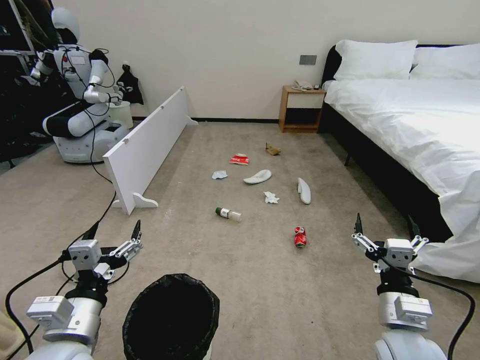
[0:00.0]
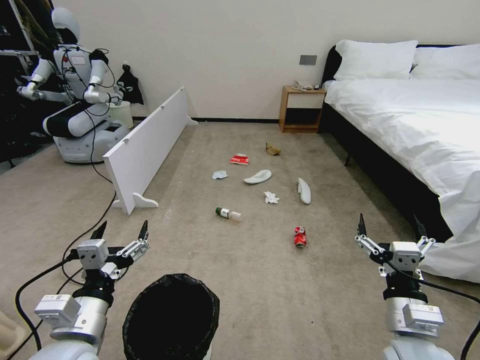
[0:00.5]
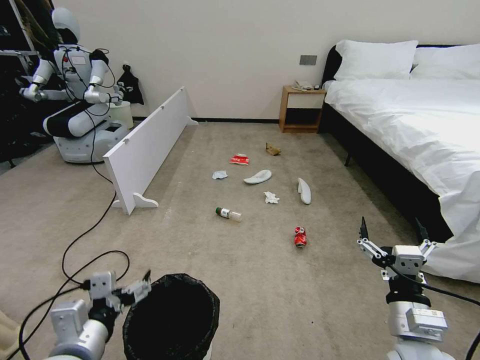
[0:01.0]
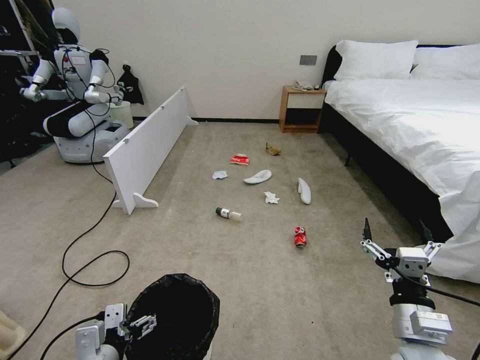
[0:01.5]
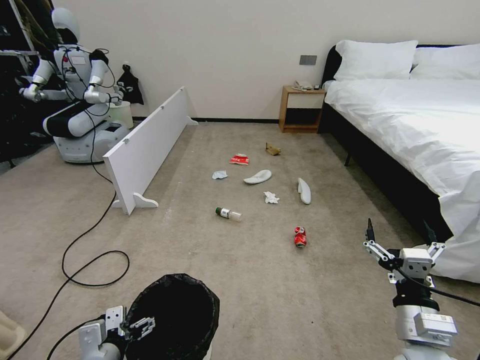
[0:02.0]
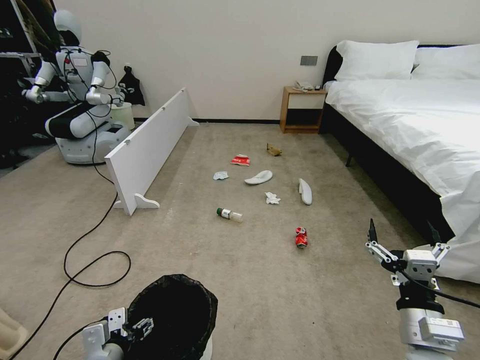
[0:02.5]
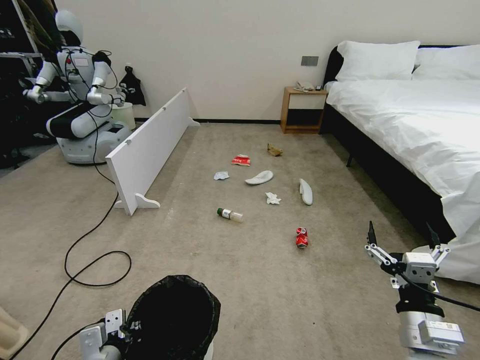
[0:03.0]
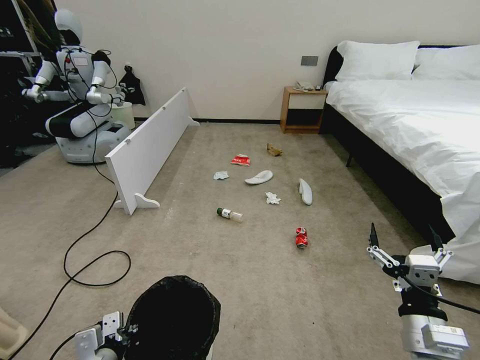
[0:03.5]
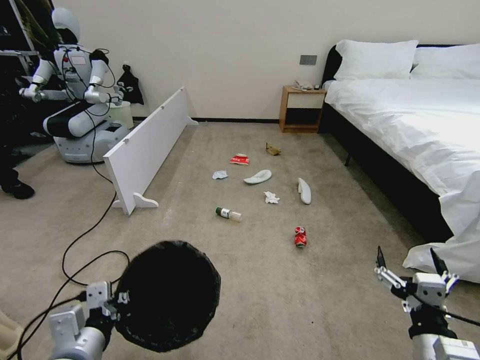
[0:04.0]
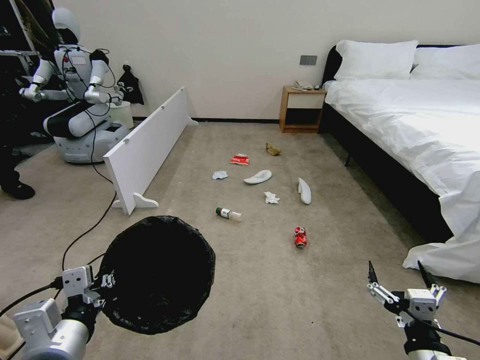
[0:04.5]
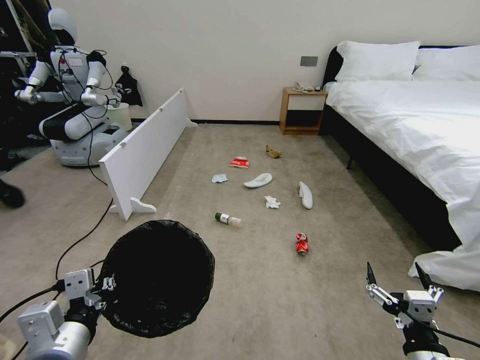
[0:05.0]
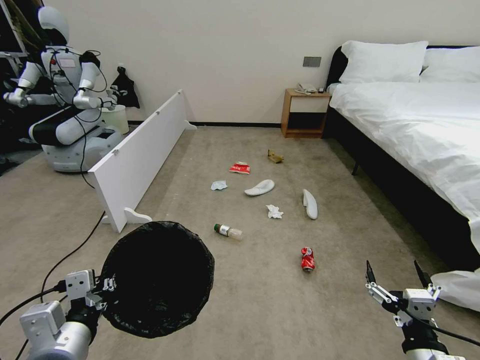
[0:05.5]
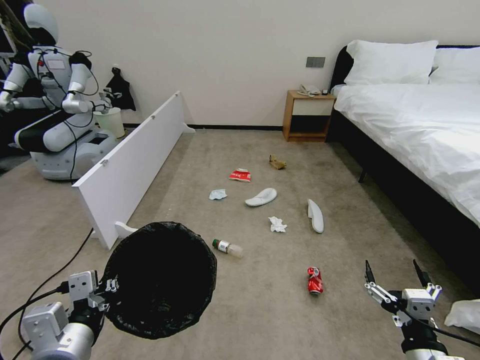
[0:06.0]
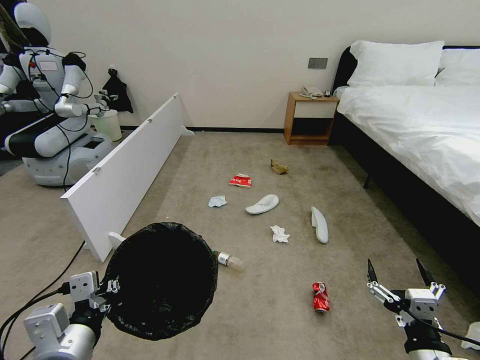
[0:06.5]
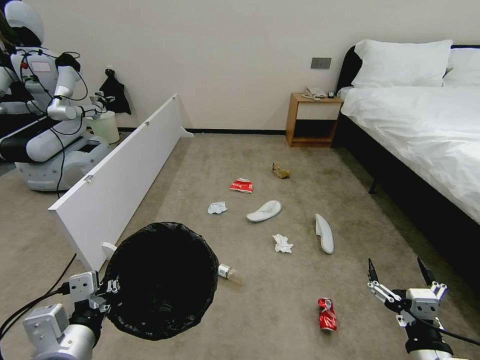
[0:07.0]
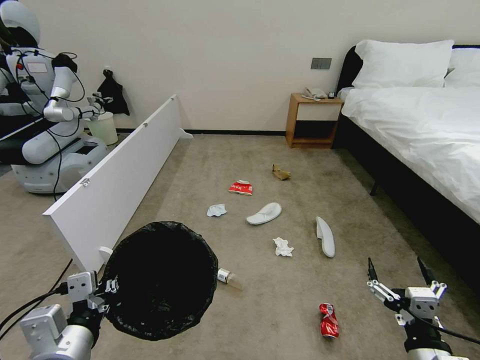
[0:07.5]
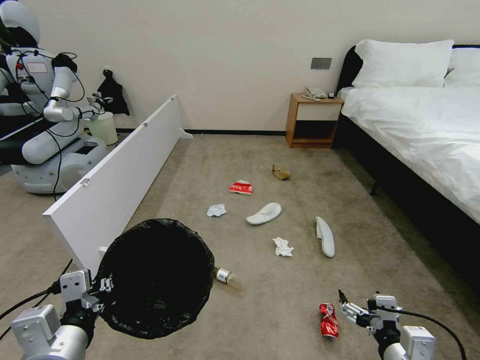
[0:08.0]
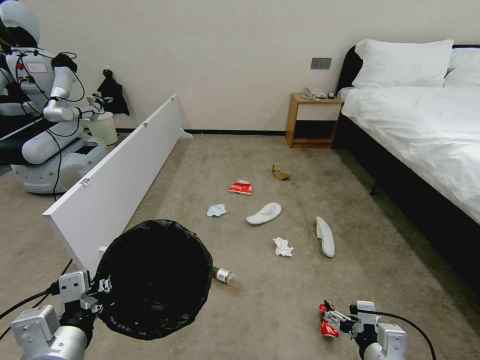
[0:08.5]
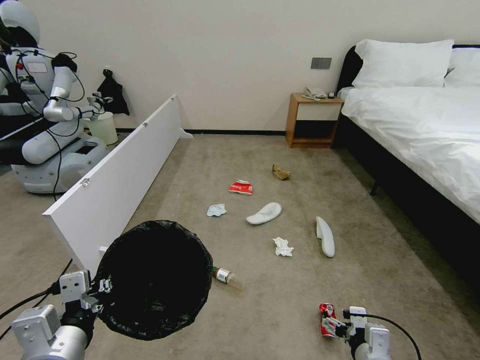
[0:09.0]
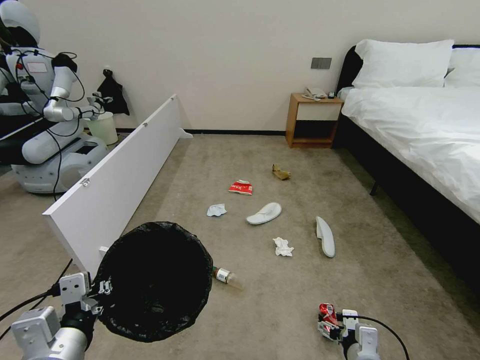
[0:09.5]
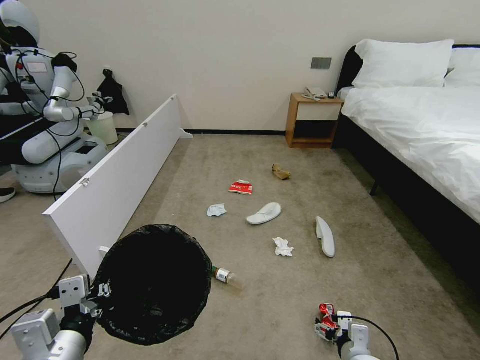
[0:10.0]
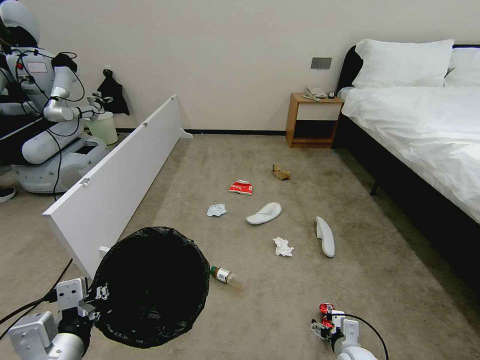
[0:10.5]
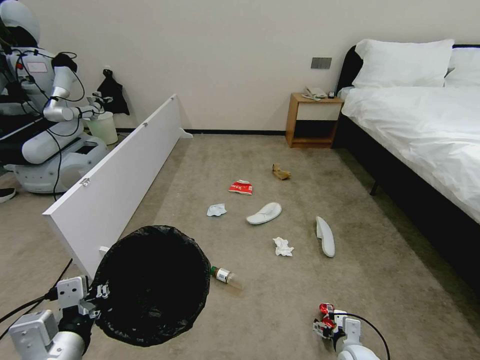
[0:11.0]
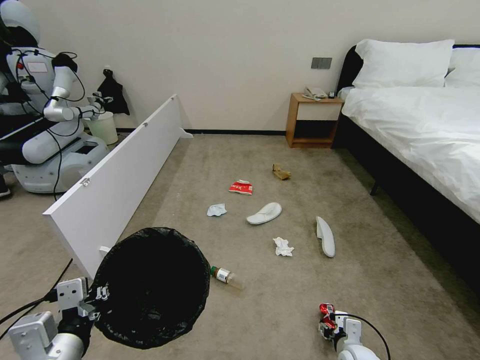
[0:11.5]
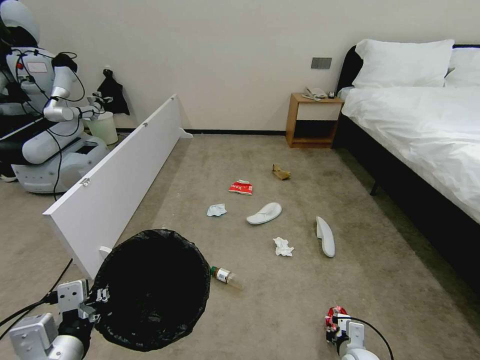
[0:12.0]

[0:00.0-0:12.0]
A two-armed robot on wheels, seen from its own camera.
Task of the whole recording: Pick up the trash bin, then pick up the garbage from the floor and place it into the trash bin.
0:02.0 to 0:04.0: The left gripper travels upward by some 10 cm, and closes its fingers.
0:08.0 to 0:10.0: The right gripper is displaced downward and forward by approximately 20 cm.
0:10.0 to 0:12.0: The right gripper changes place by some 5 cm, and closes.

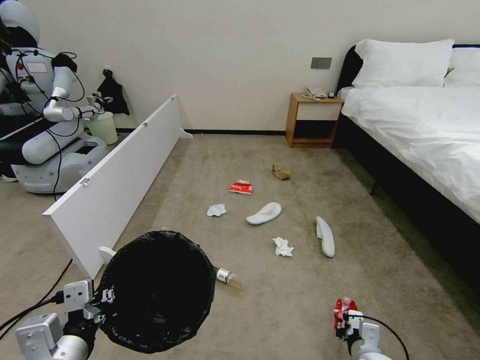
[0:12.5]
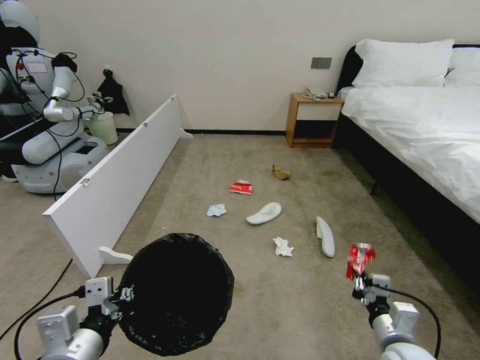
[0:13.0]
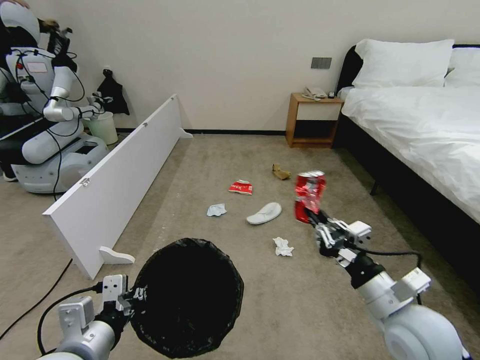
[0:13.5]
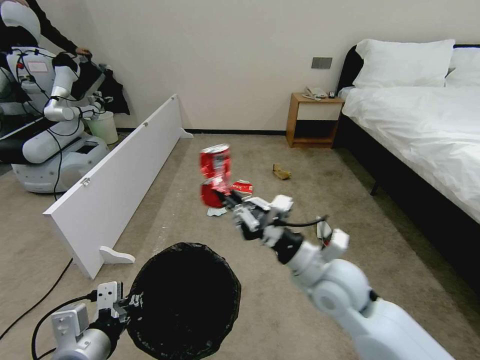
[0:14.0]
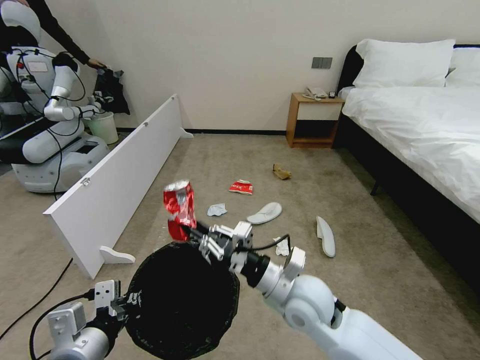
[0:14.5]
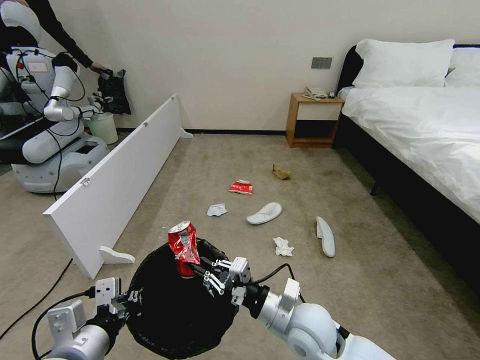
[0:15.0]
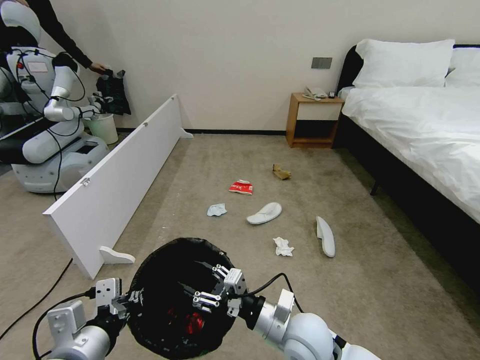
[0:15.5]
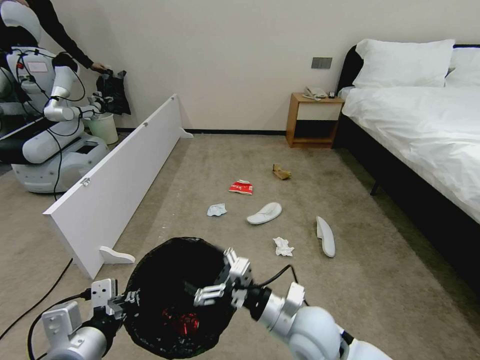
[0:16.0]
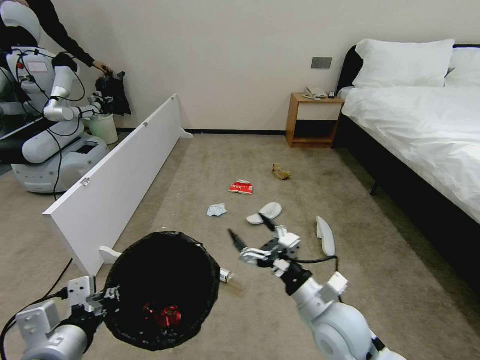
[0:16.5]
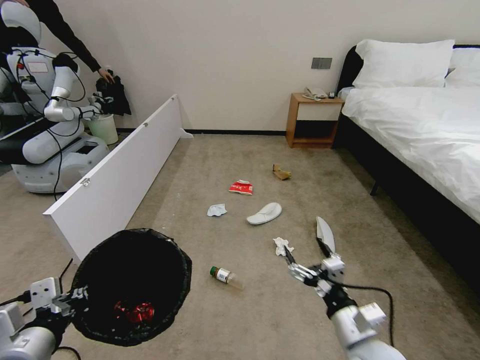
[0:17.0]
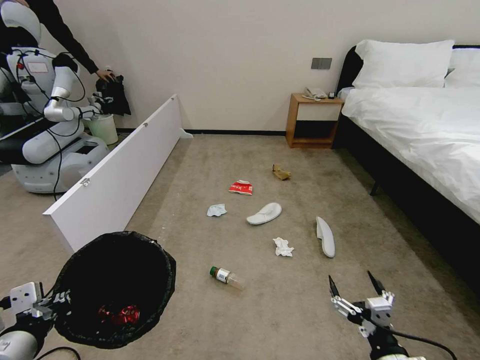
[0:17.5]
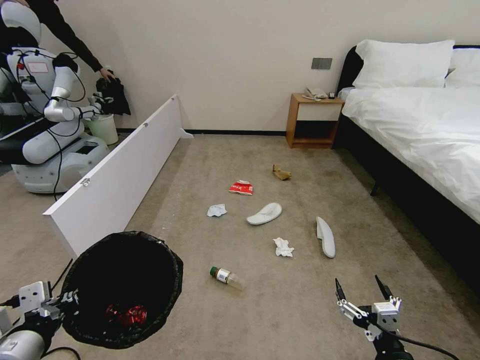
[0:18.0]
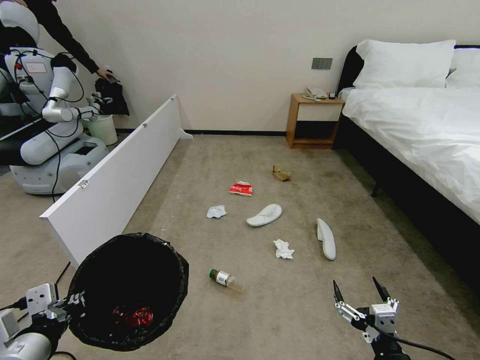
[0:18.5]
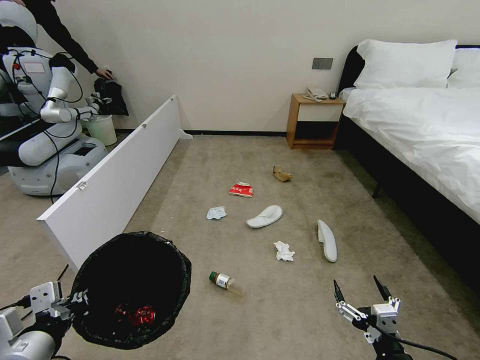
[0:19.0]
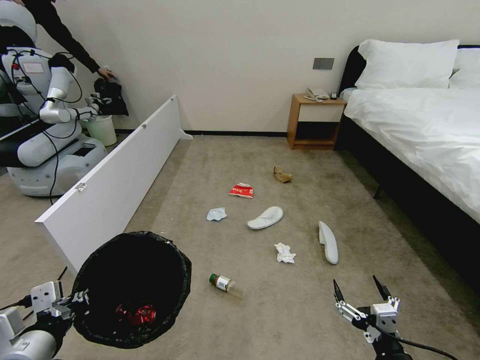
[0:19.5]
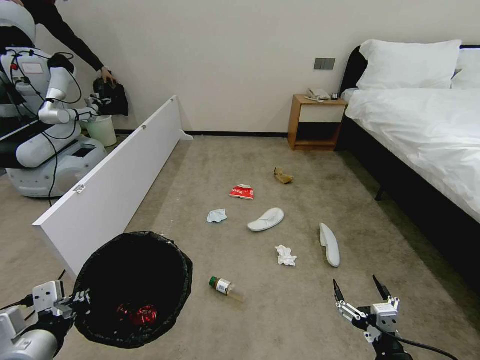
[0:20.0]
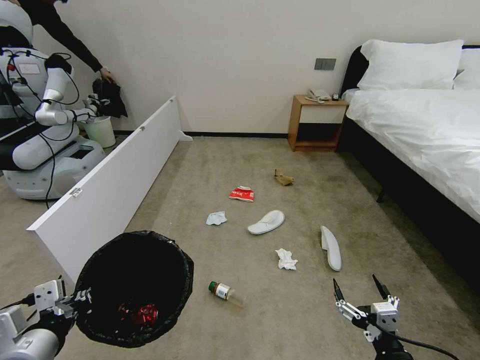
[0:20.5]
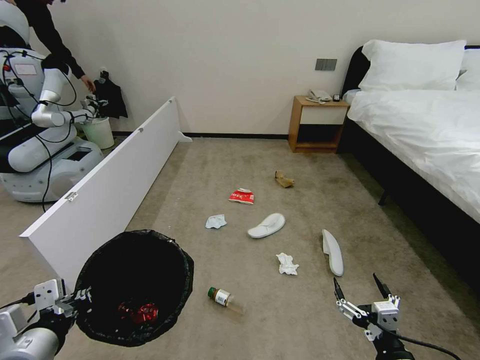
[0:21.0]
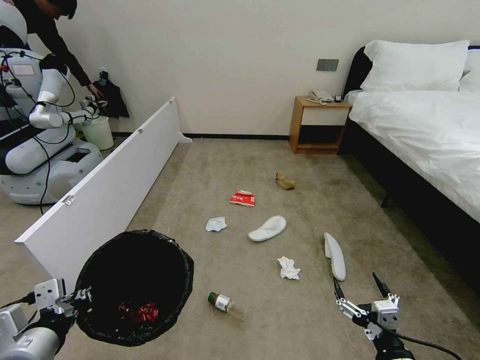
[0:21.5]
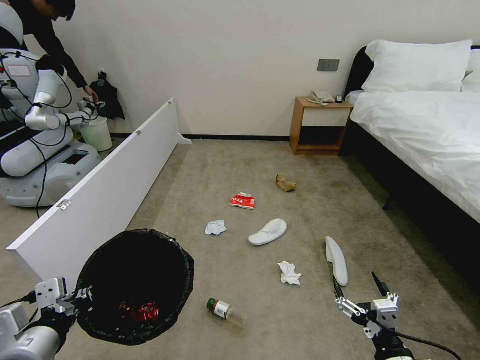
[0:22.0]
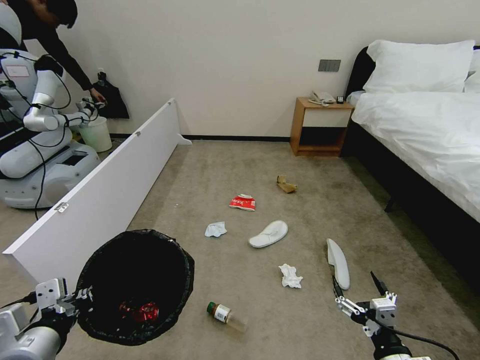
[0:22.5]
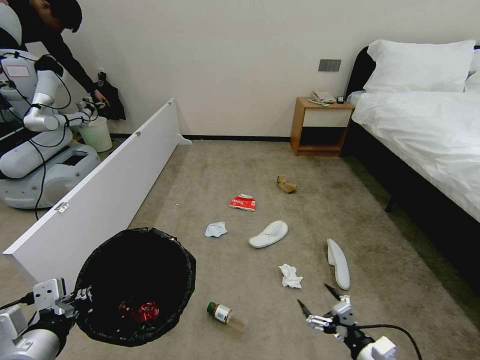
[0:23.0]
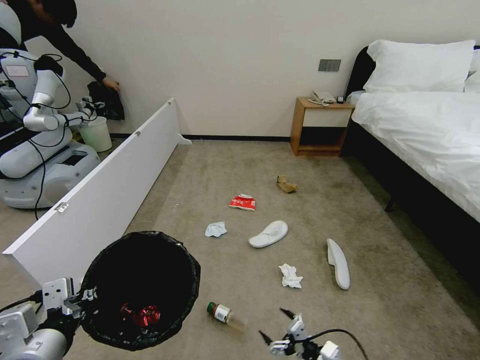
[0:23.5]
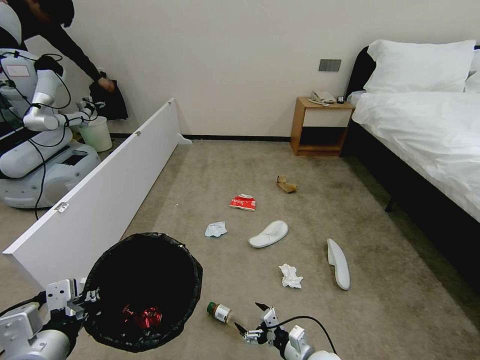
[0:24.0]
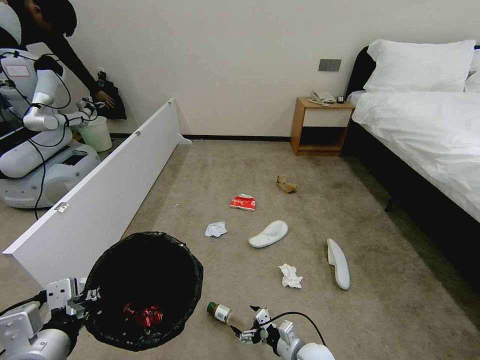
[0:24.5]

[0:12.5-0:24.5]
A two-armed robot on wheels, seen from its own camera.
Task of the whole recording: Pick up the trash bin, then pick up the garbage from the floor and place it into the trash bin.
0:12.5 to 0:14.5: The right gripper goes approximately 30 cm upward and to the left.
0:14.5 to 0:16.5: The right gripper shifts about 5 cm to the right, and opens up.
0:16.5 to 0:18.5: The right gripper goes some 20 cm backward, to the right and downward.
0:18.5 to 0:20.5: Both grippers stay about where they are.
0:20.5 to 0:22.5: The grippers move only a little.
0:22.5 to 0:24.5: The right gripper goes approximately 25 cm downward, forward and to the left.

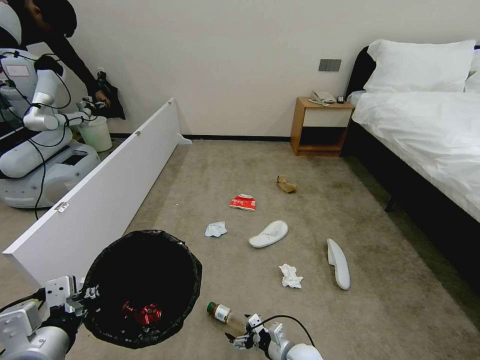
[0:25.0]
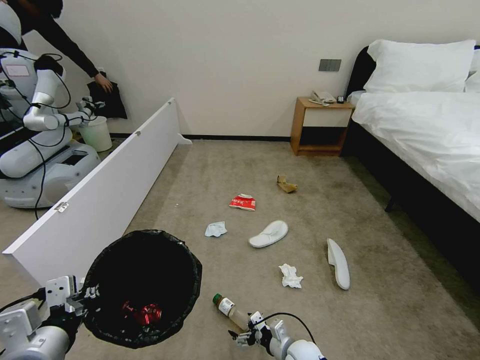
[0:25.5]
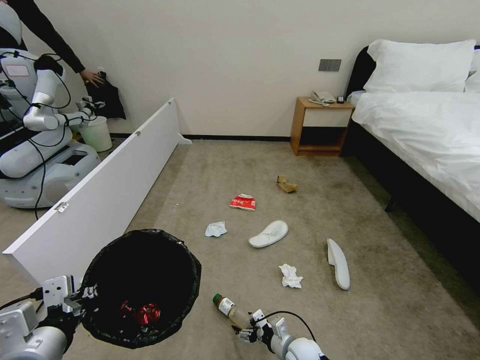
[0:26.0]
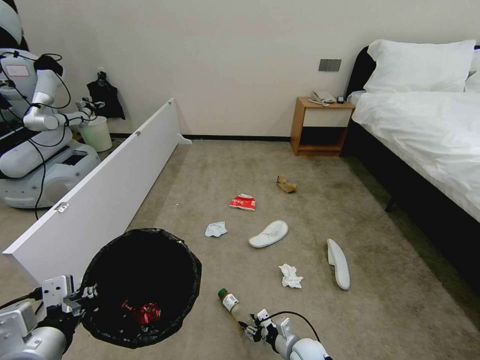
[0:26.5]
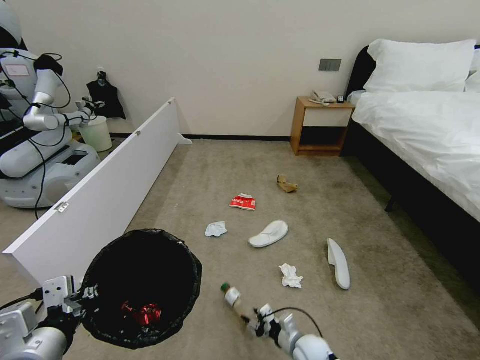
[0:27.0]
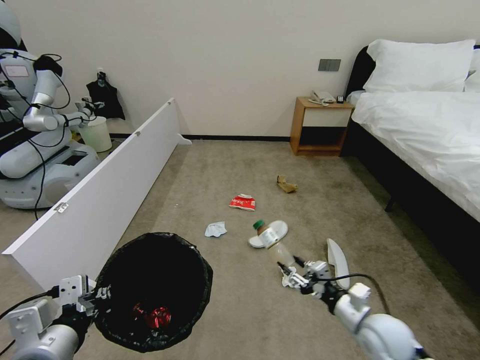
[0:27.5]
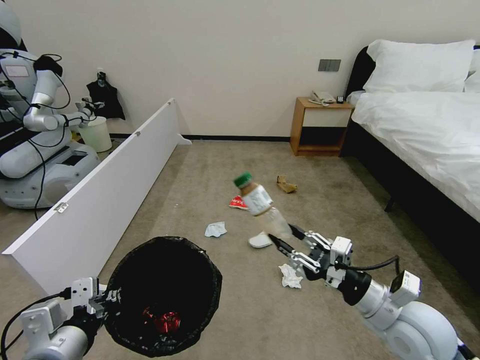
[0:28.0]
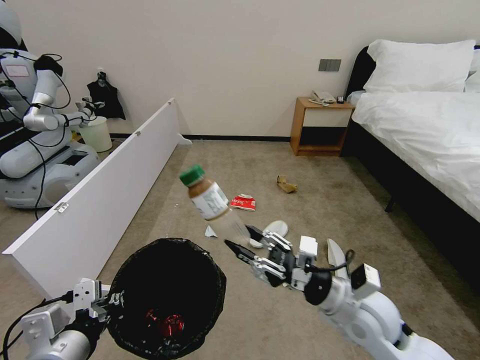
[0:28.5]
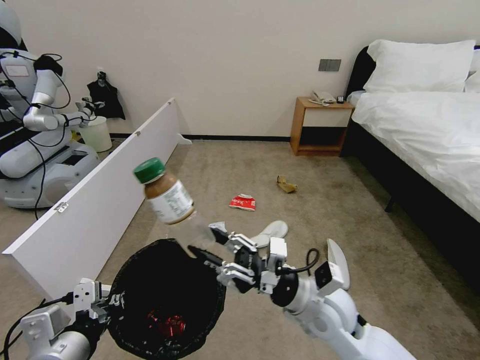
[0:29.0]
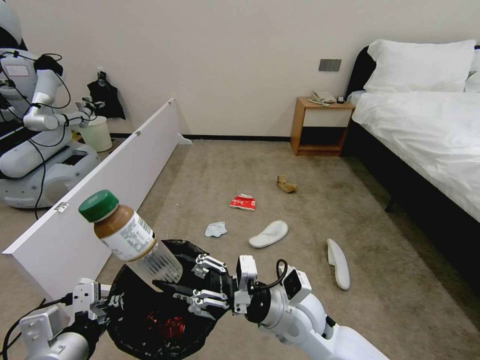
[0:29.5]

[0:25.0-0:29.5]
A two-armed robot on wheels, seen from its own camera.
Task of the whole recording: Pick up the trash bin, then pick up the garbage from the floor and place it into the trash bin.
0:25.0 to 0:27.0: The right gripper closes its fingers.
0:27.0 to 0:29.5: The right gripper heads upward, covering roughly 30 cm.
